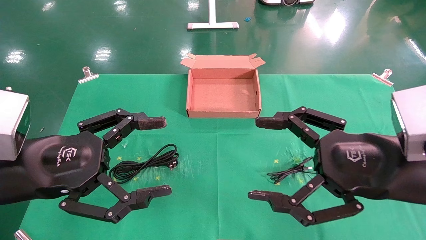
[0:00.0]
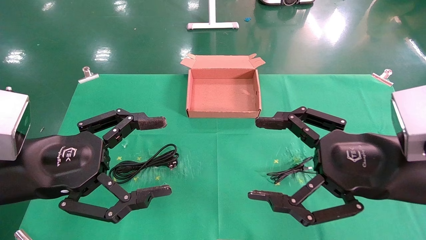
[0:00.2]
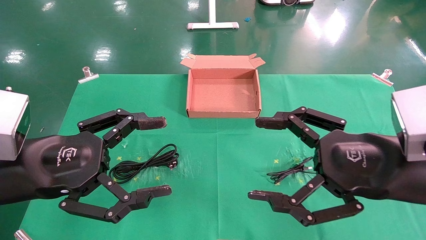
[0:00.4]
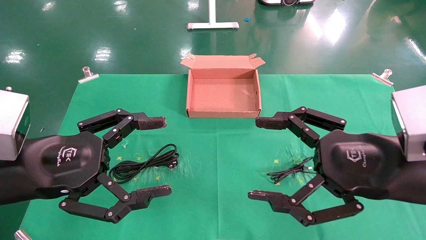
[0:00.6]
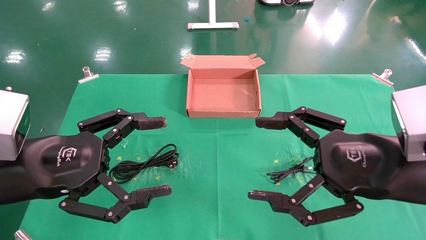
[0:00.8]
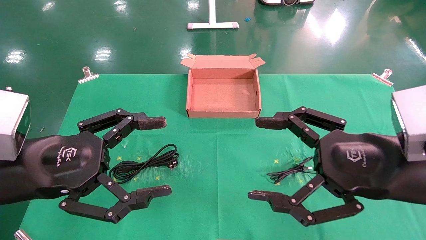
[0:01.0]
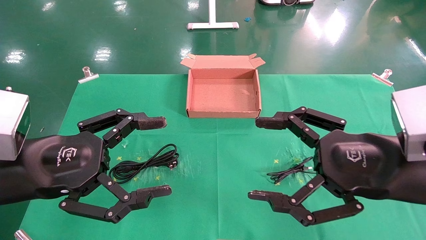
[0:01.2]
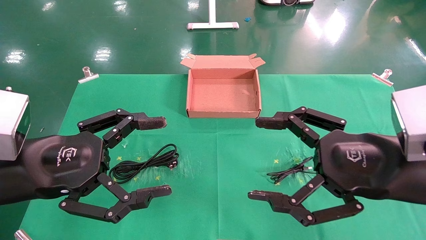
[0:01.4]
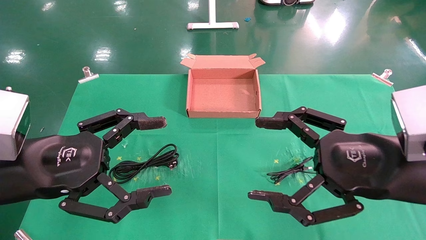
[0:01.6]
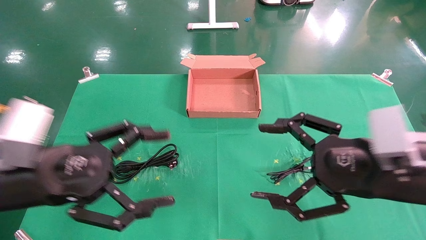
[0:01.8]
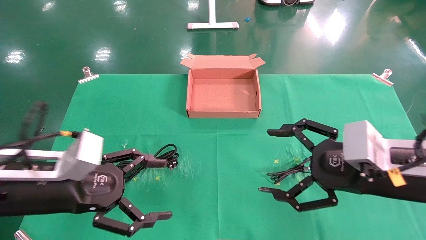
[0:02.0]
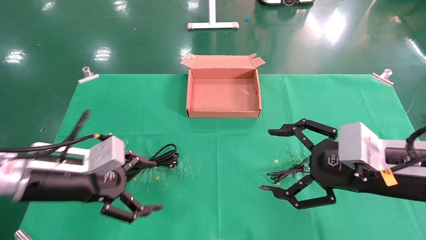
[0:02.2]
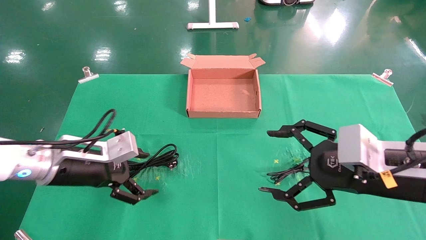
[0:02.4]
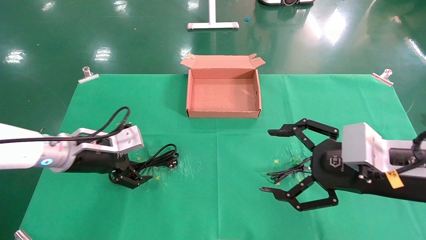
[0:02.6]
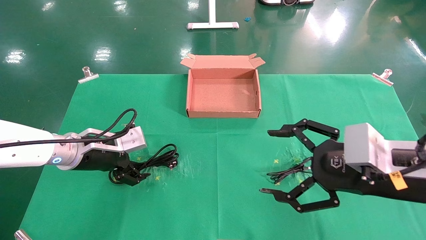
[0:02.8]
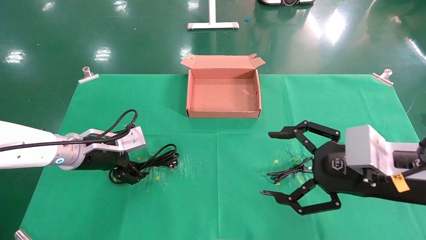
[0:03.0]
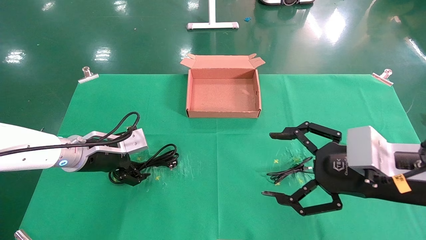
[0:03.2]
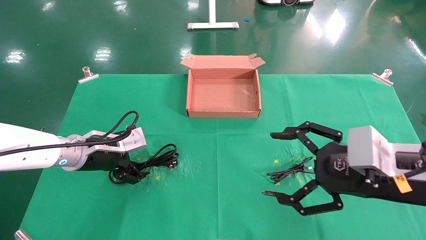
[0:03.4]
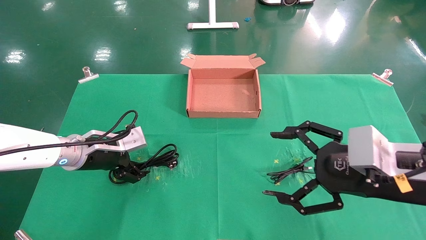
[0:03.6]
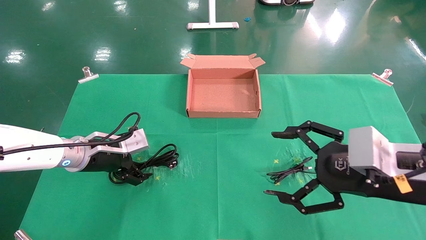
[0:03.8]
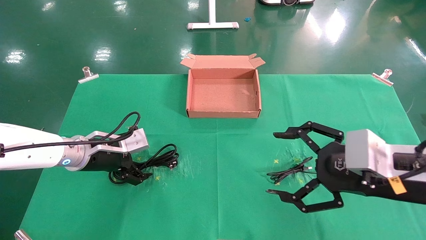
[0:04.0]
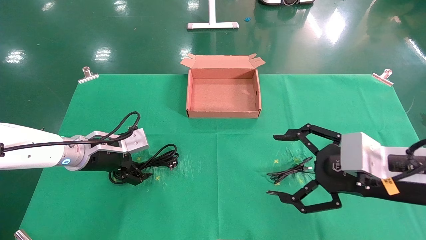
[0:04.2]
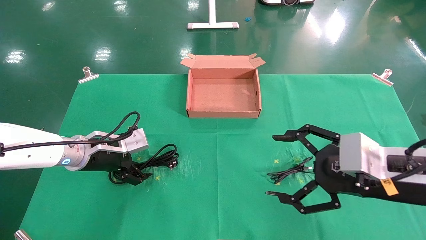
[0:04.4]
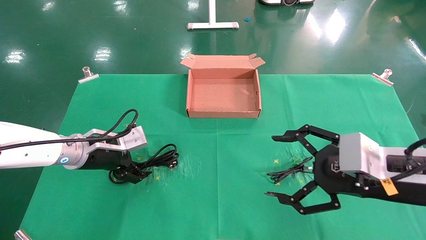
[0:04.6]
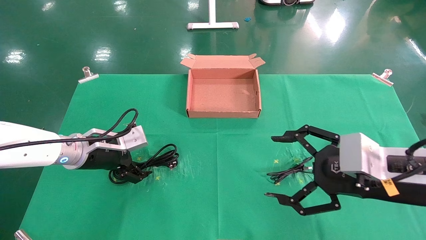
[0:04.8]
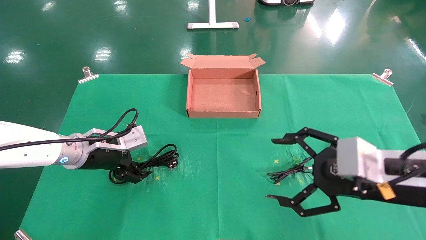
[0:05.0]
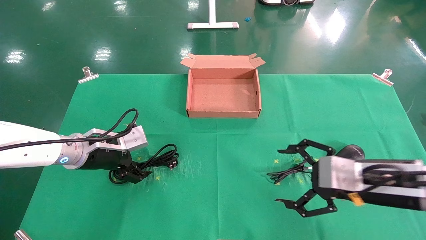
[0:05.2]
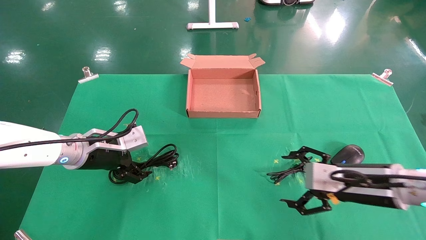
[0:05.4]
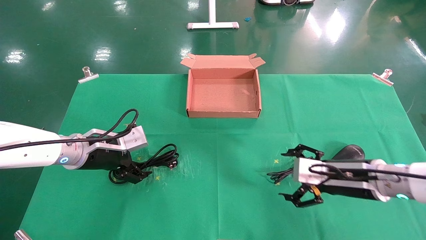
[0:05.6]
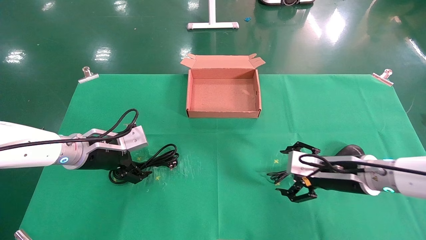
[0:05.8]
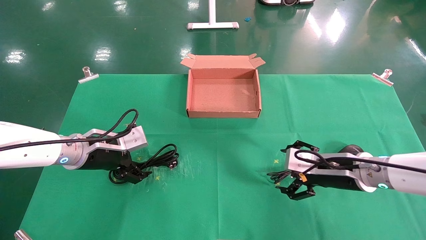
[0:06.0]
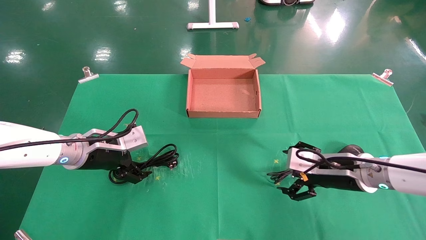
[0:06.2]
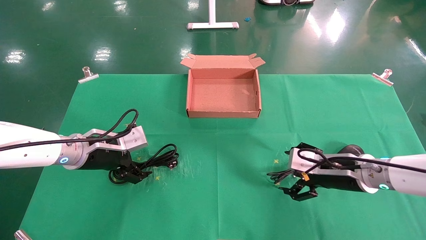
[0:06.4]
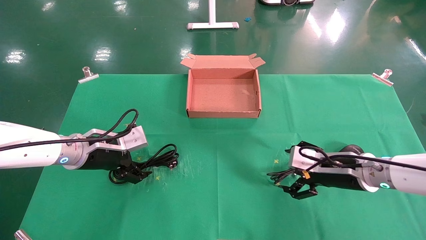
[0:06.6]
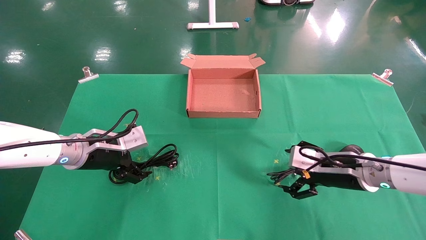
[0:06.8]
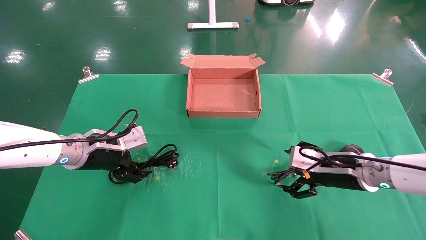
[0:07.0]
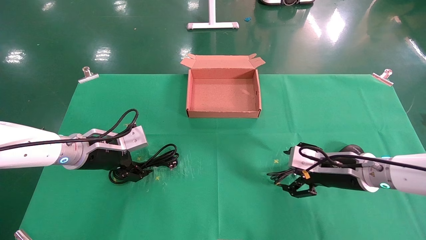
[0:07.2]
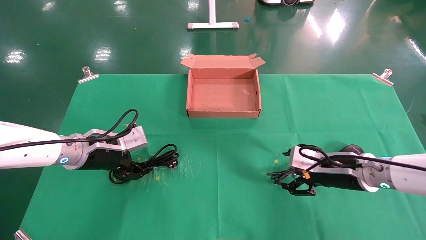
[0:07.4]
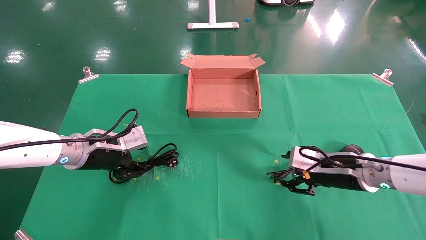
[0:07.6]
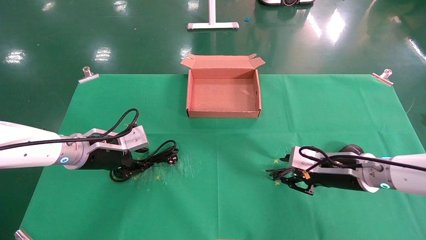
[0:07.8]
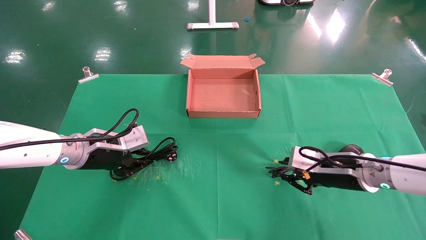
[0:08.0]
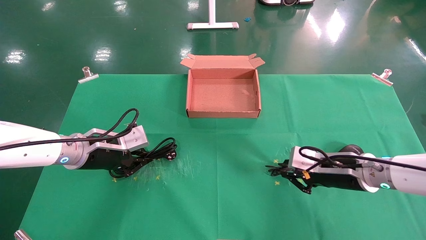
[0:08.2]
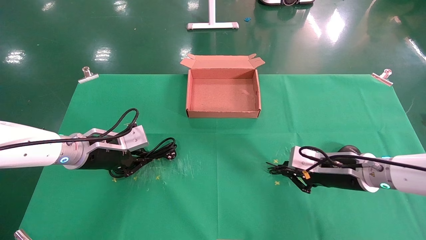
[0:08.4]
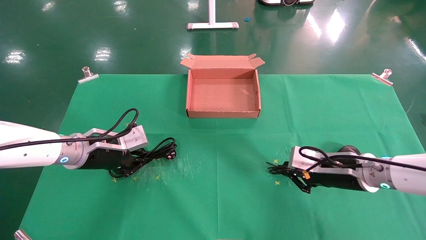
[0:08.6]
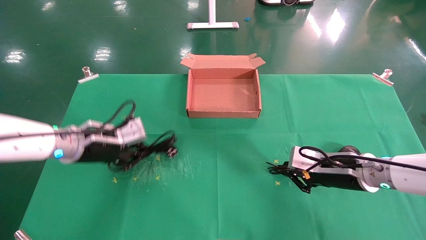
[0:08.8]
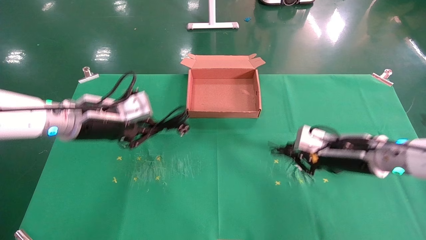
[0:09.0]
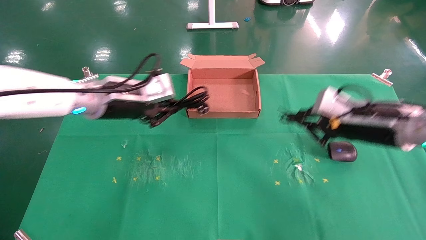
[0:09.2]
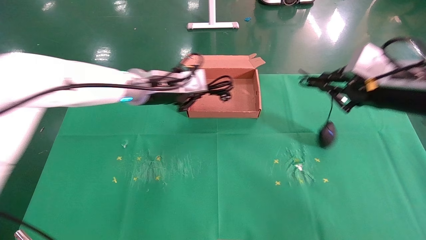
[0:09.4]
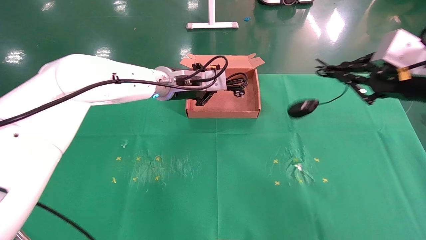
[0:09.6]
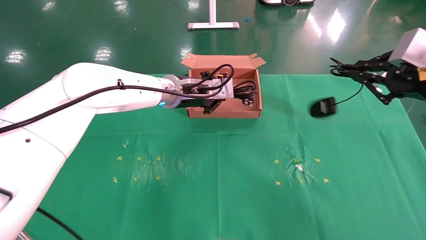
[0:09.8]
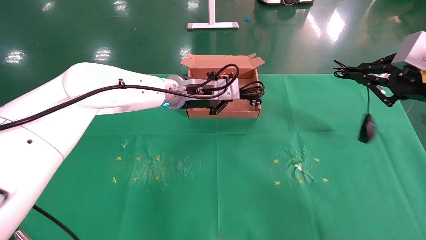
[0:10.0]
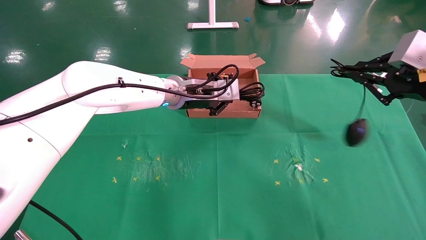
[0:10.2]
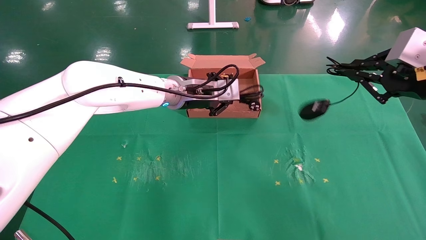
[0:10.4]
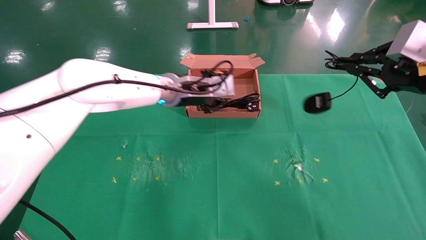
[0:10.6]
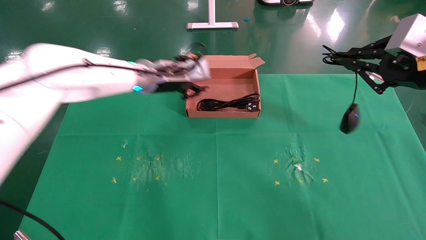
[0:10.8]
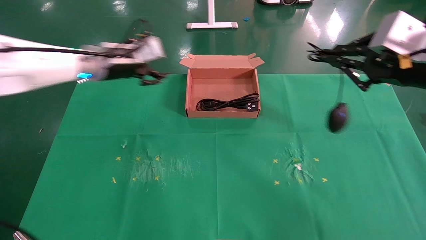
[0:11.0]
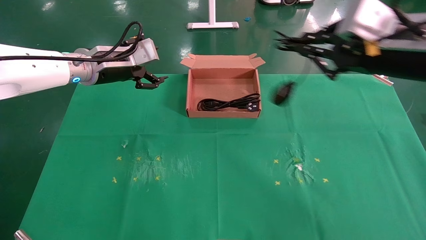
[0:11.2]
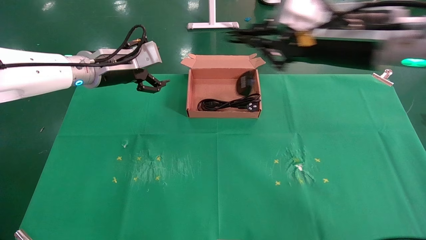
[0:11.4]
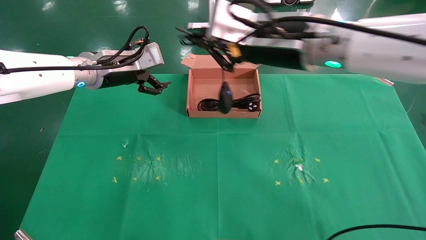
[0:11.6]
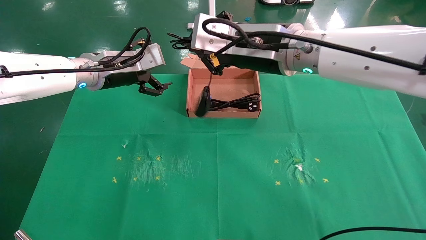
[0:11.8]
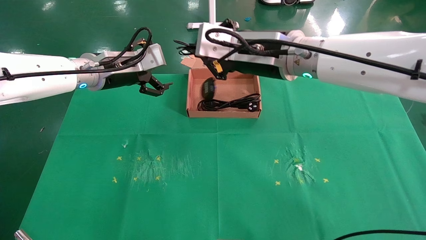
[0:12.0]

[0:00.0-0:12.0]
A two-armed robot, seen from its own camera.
Task of the whole recording: grasp data cable left put into box grasp mouse right put into box.
Step, 0:02.0 to 0:08.8: Simultaneously pick up the mouse and power cord from the accessory packaging area.
0:00.0 to 0:01.6: Both grippers stay about where they are.
0:01.6 to 0:03.0: The left gripper heads forward and downward, covering about 15 cm.
0:03.0 to 0:04.4: The grippers stay close to where they were, moving slightly.
0:04.4 to 0:06.0: The right gripper is displaced forward and downward by about 15 cm.
0:07.6 to 0:09.0: Both grippers travel together upward, roughly 5 cm. The left gripper closes its fingers; the right gripper closes its fingers.
0:09.0 to 0:10.4: The left gripper goes some 20 cm to the right and forward. The right gripper is displaced upward, to the right and backward by roughly 15 cm.
0:10.4 to 0:12.0: The right gripper heads to the left, covering some 25 cm. The left gripper heads to the left, covering roughly 15 cm, and opens.

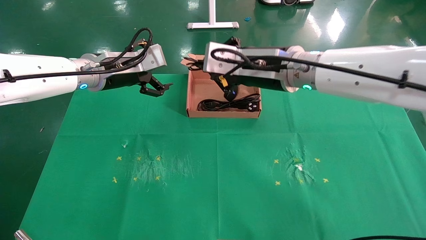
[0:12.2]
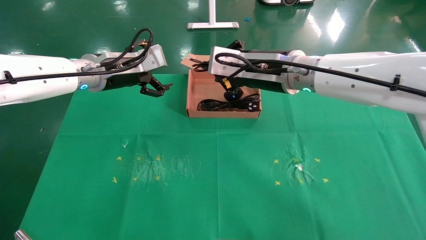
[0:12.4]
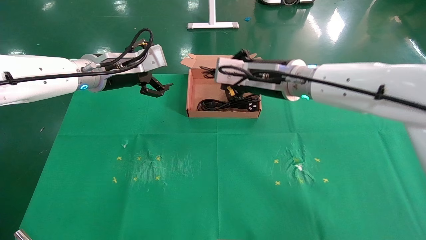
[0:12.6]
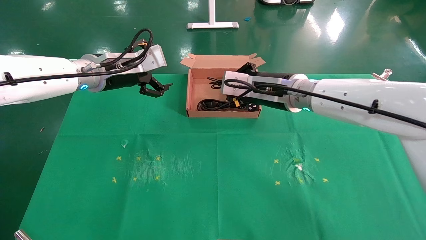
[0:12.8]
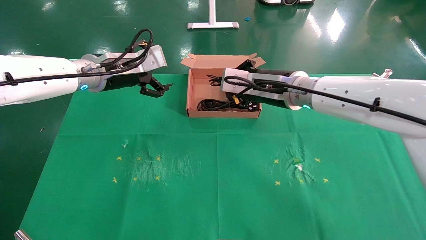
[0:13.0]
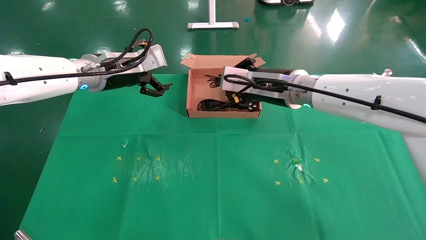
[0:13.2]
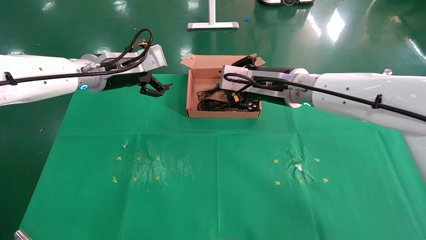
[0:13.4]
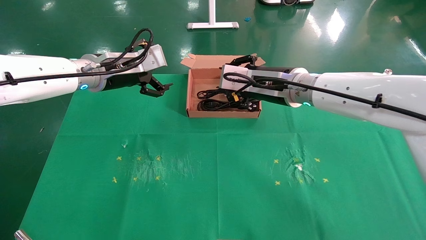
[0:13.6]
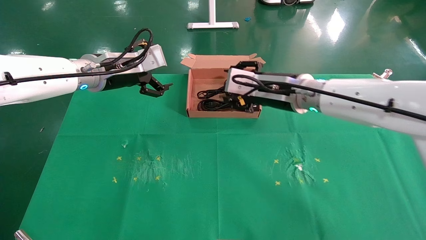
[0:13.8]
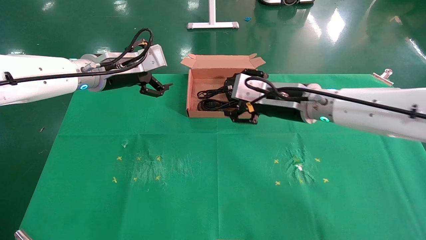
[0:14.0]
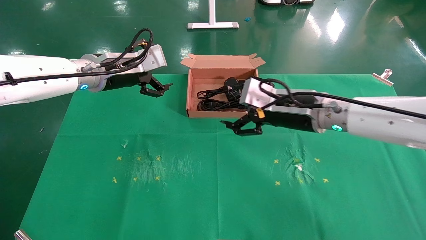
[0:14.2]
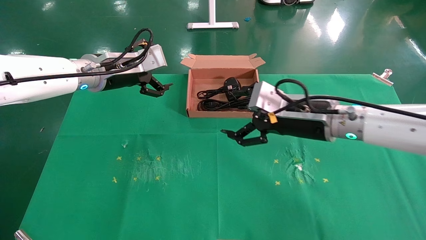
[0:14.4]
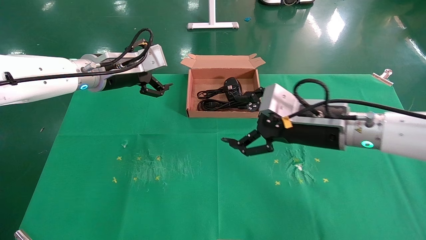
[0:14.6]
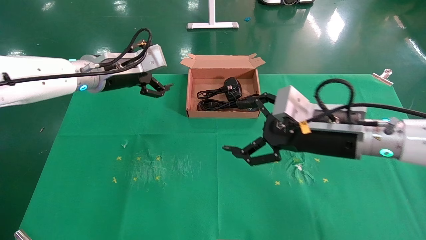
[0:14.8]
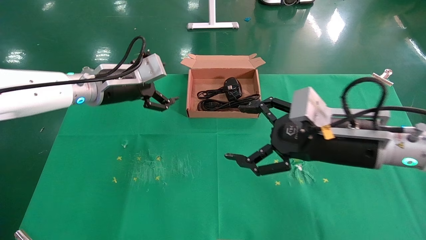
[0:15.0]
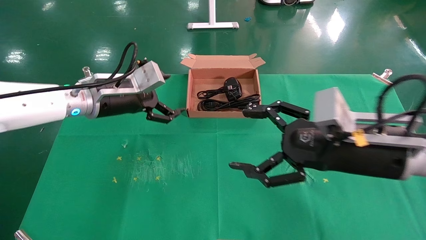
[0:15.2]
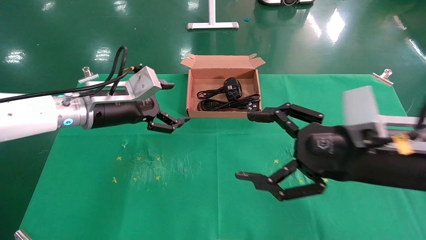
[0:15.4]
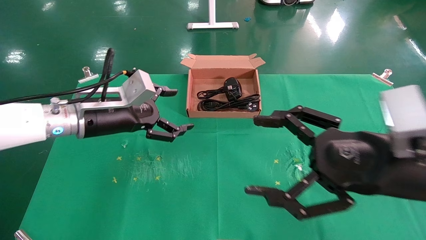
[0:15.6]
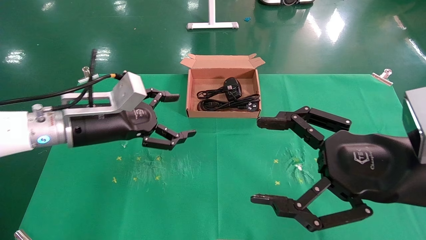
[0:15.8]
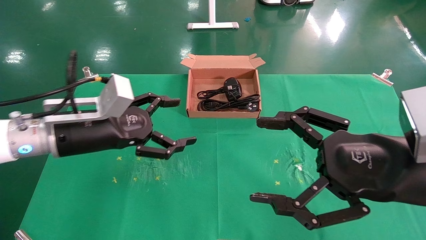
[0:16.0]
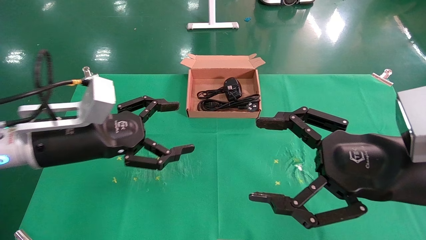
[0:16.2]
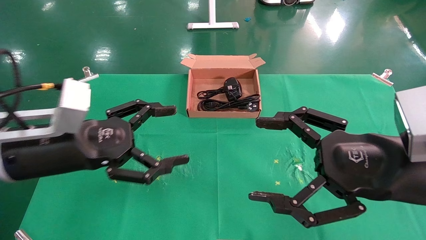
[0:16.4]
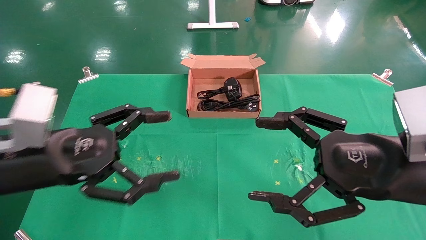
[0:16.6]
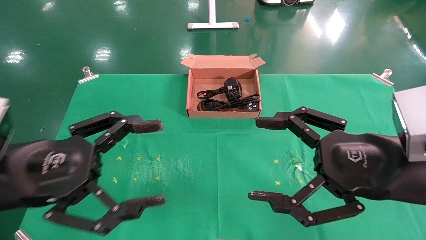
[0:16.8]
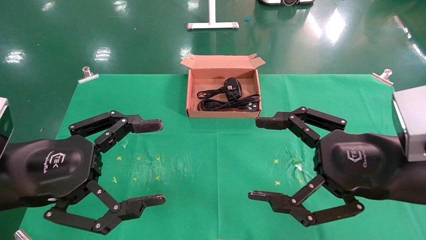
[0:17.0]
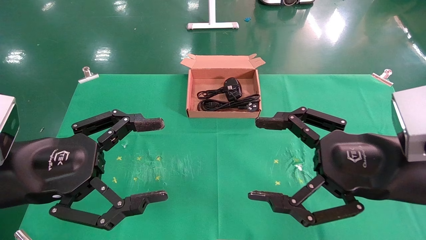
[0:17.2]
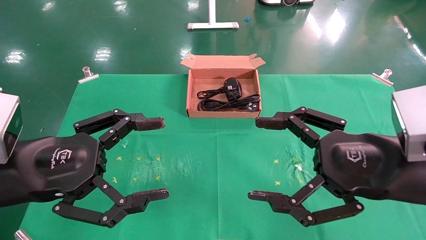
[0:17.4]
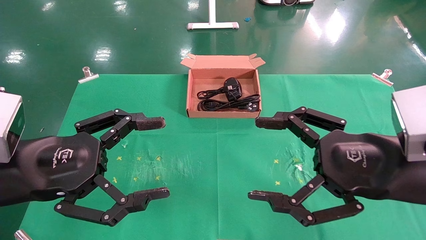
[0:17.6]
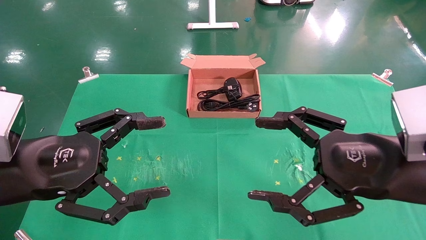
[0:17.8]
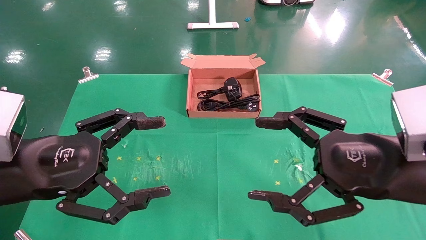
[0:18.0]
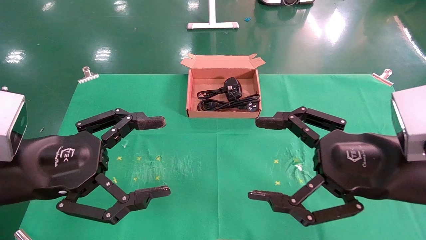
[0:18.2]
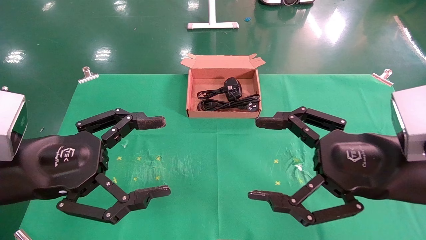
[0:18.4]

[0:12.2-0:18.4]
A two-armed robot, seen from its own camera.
Task of the whole recording: grasp data cable left put into box grasp mouse right put into box.
0:12.2 to 0:13.8: The right gripper moves downward, roughly 5 cm, and opens its fingers.
0:13.8 to 0:15.4: The left gripper heads downward and backward, covering approximately 10 cm; the right gripper goes some 20 cm backward and to the right, and opens.
0:15.4 to 0:16.8: The left gripper travels backward by about 20 cm.
0:16.8 to 0:18.4: The two grippers keep their place.
